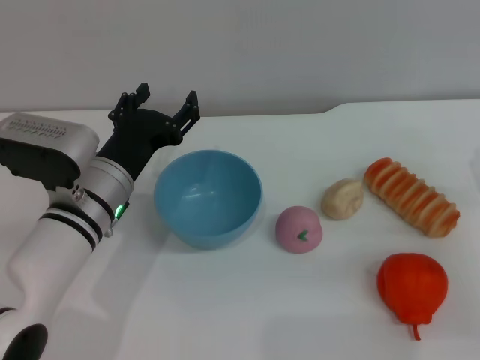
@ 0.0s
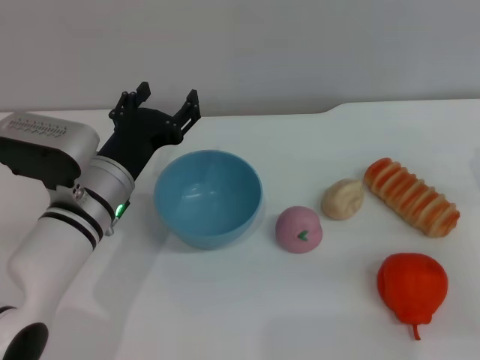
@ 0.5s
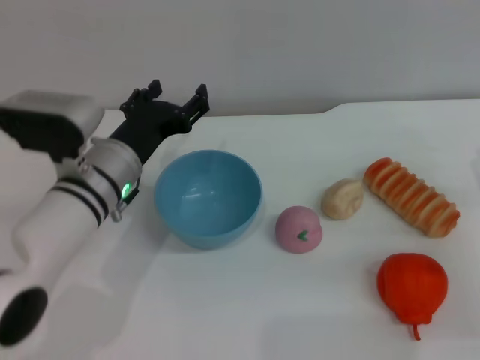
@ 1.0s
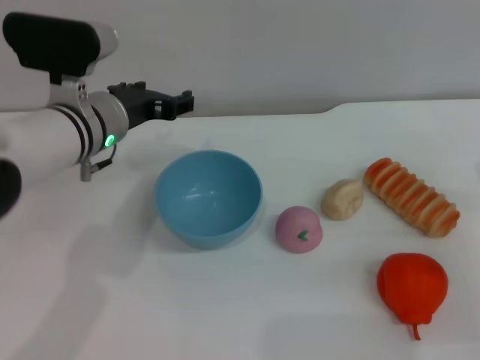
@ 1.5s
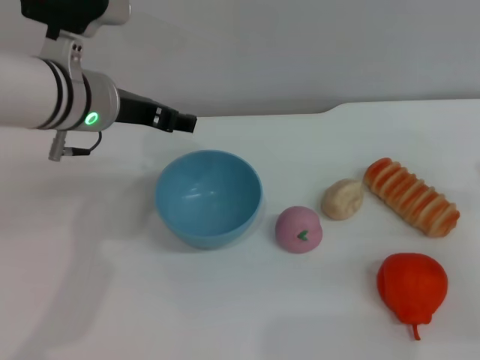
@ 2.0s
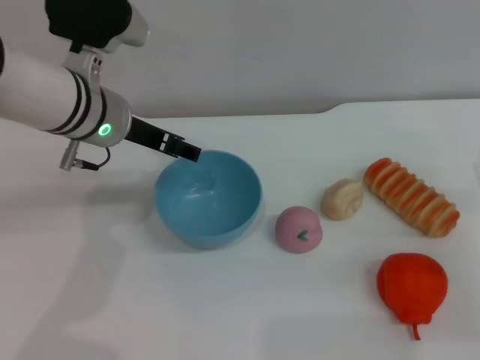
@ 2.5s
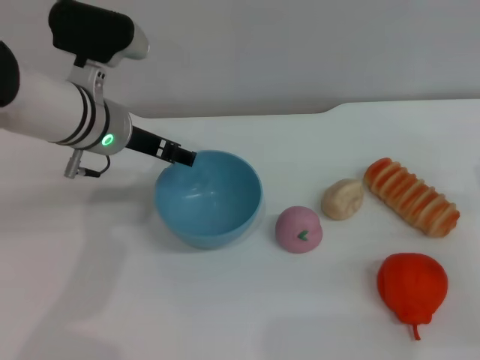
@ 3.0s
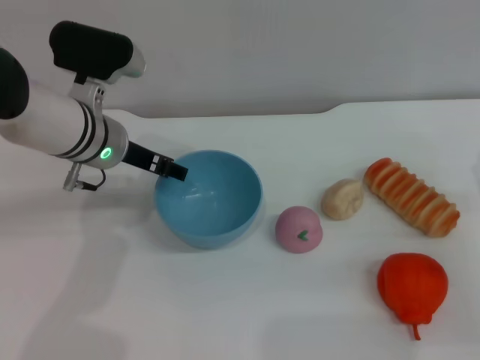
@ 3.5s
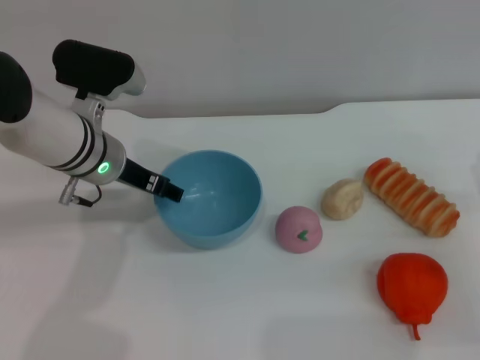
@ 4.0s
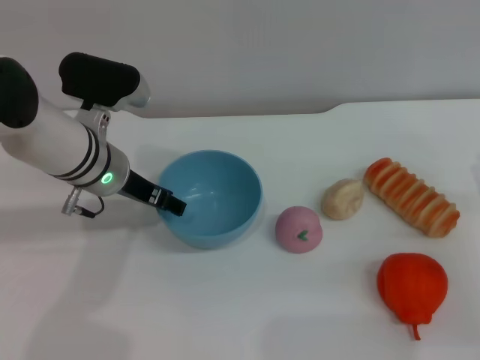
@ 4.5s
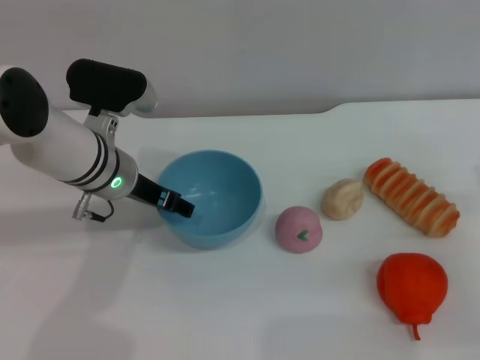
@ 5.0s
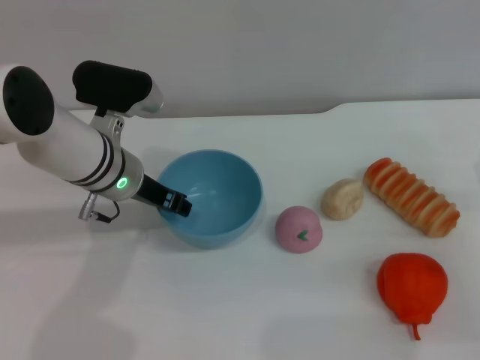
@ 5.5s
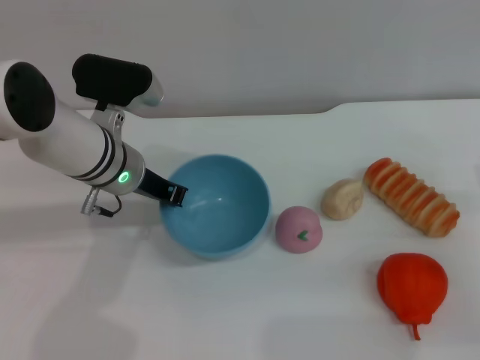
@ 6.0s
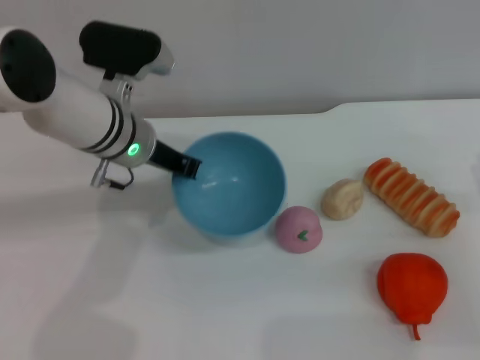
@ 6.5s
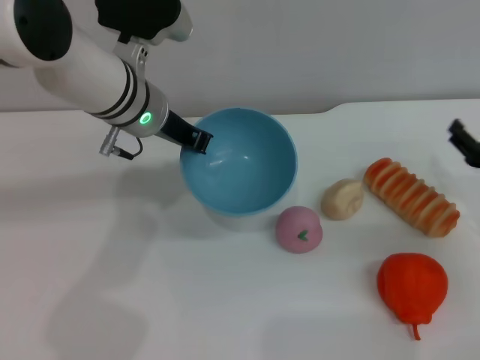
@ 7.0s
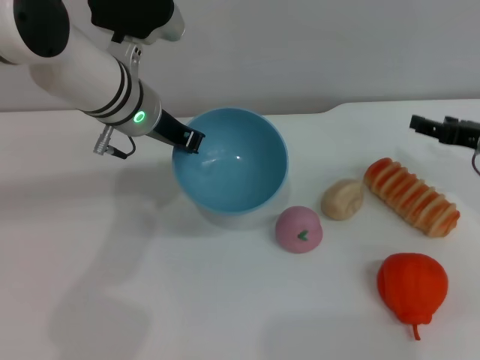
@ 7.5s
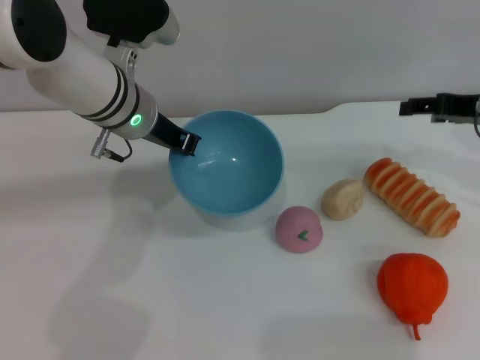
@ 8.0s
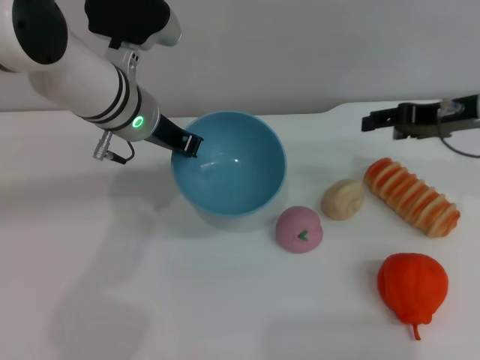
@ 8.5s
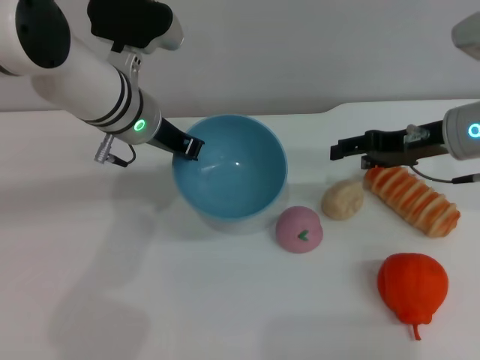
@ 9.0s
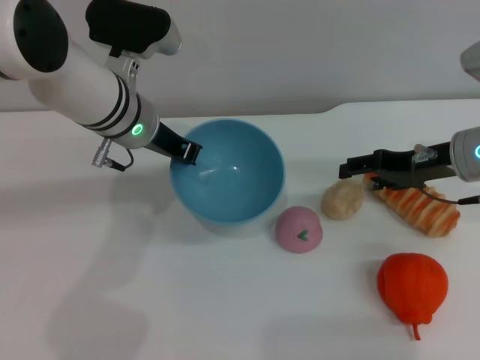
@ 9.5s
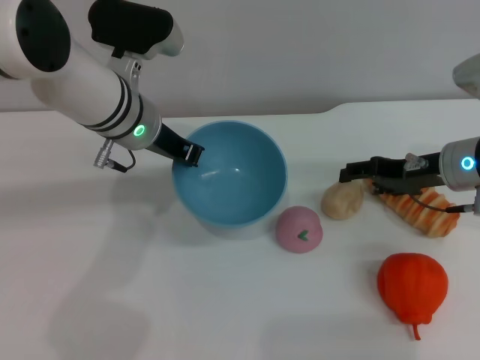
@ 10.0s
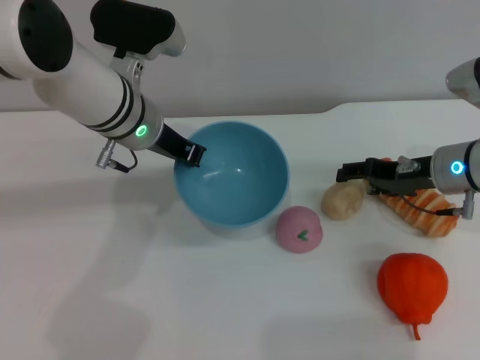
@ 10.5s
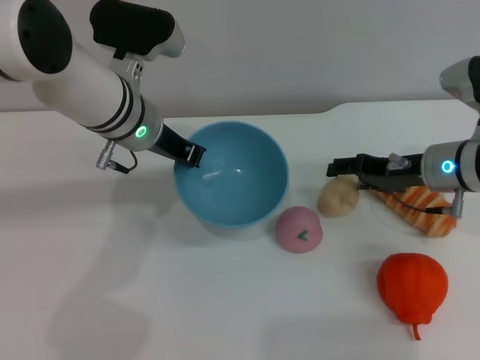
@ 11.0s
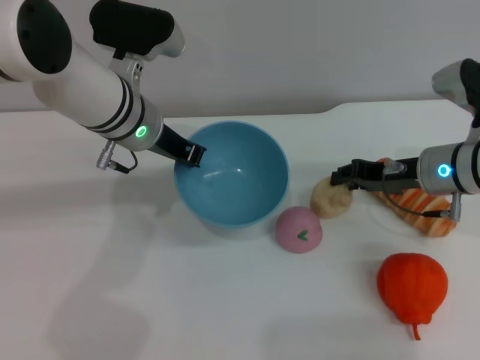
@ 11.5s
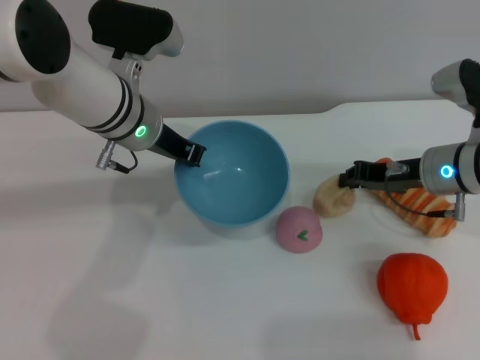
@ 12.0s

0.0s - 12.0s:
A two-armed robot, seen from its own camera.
Task of the whole recording: put the egg yolk pastry into the blue bowl and pour it out repeatedly.
Step, 0.0s - 6.5s: Pick up the bowl with the left gripper.
0.0s - 2.0s: The left gripper goes roughly 15 cm upward and forward.
2.0s - 4.0s: The left gripper travels downward by some 5 cm.
4.0s - 6.0s: The left gripper closes its fingers.
6.0s - 8.0s: The left gripper travels upward by roughly 5 cm, while the right gripper is displaced forward and upward by roughly 15 cm.
8.0s - 10.0s: The right gripper shifts some 10 cm downward and to the left.
10.0s - 12.0s: The right gripper closes up.

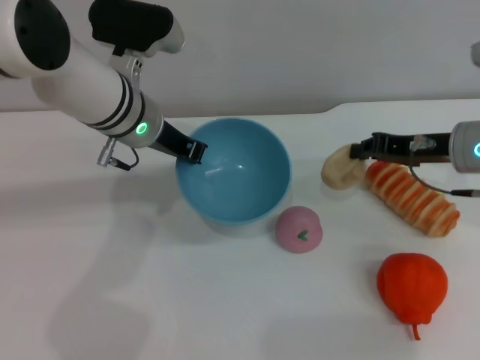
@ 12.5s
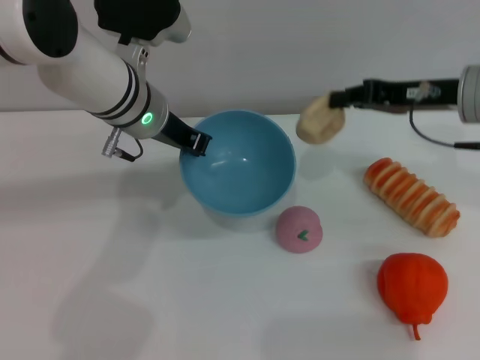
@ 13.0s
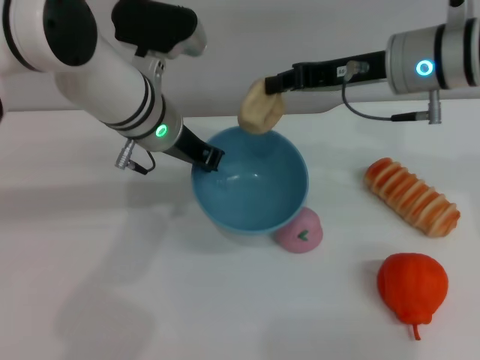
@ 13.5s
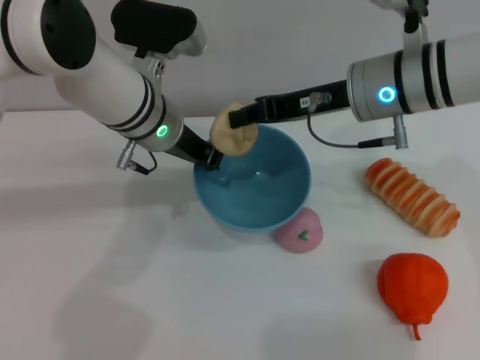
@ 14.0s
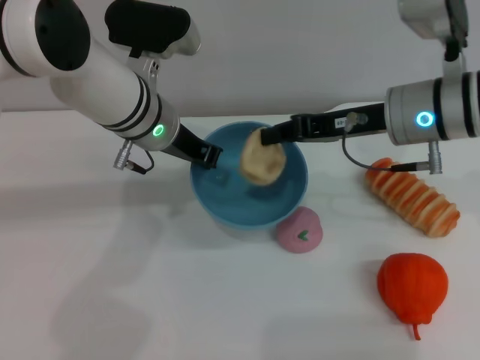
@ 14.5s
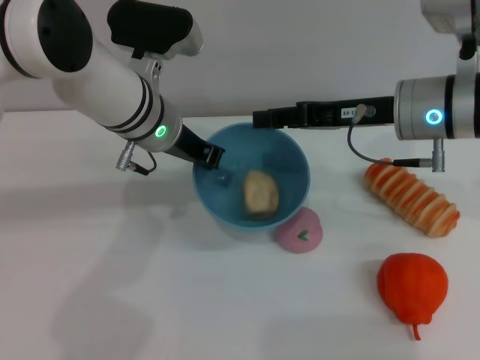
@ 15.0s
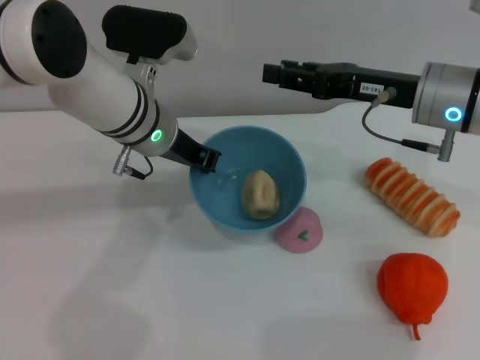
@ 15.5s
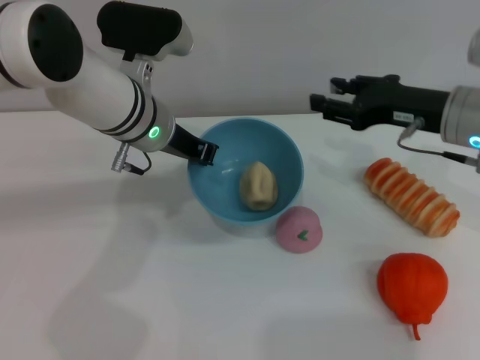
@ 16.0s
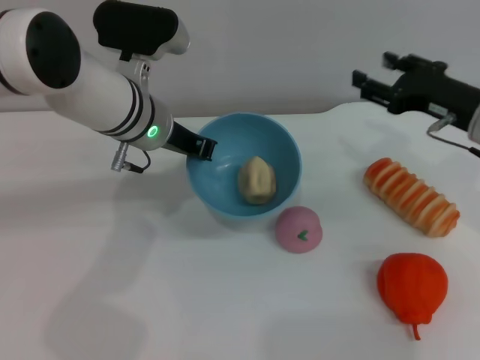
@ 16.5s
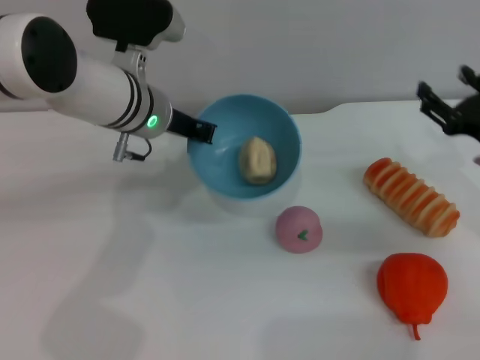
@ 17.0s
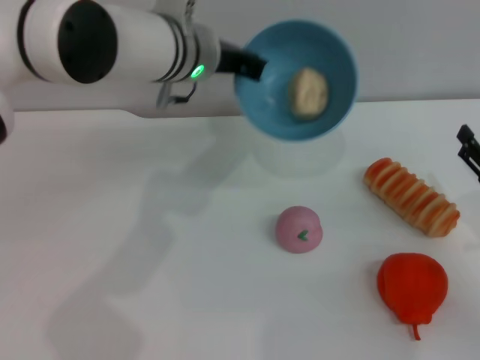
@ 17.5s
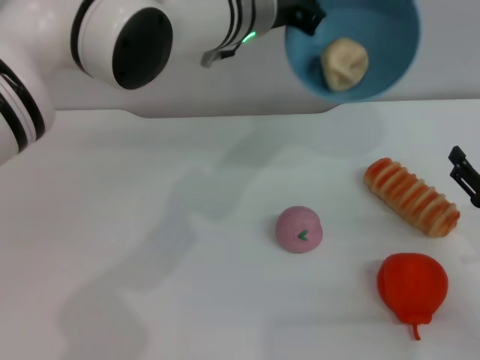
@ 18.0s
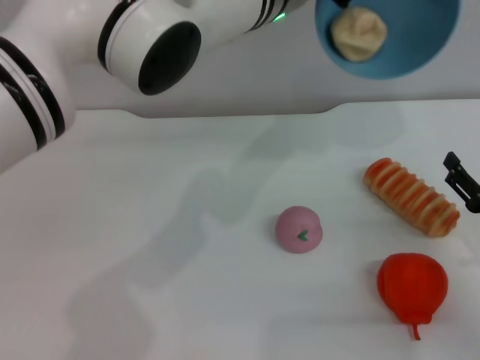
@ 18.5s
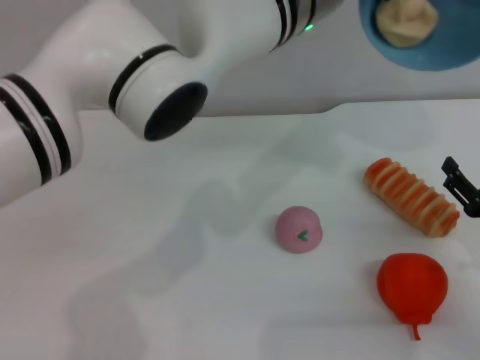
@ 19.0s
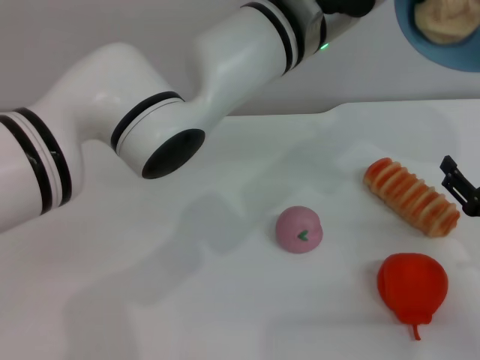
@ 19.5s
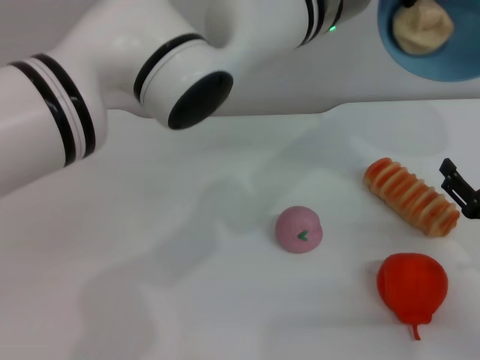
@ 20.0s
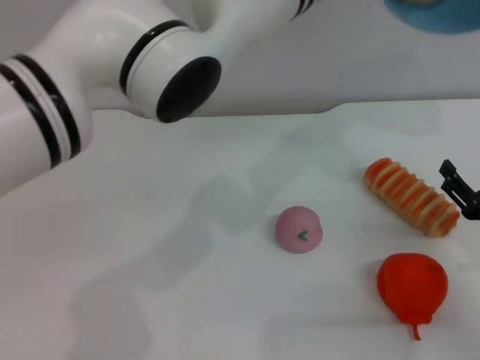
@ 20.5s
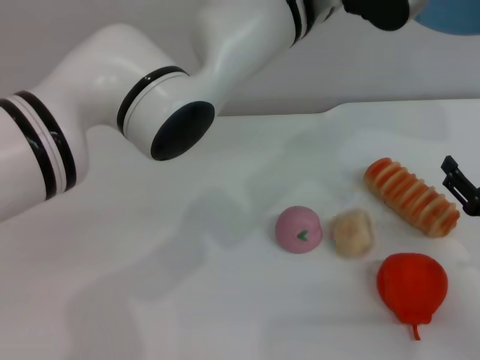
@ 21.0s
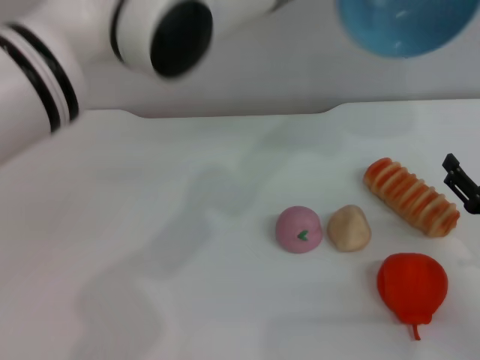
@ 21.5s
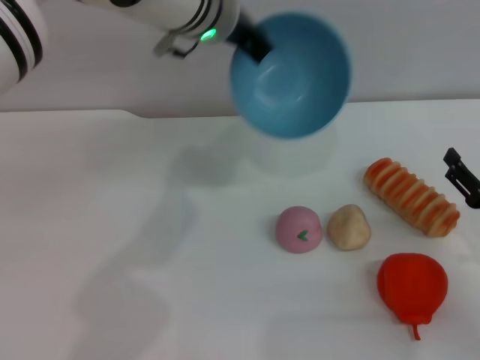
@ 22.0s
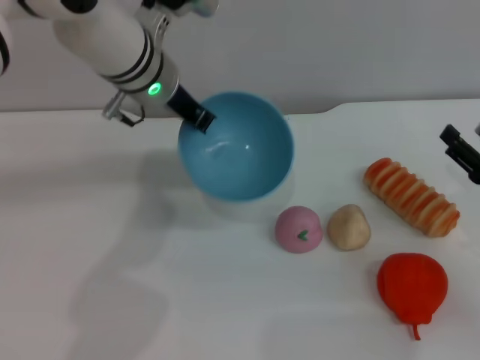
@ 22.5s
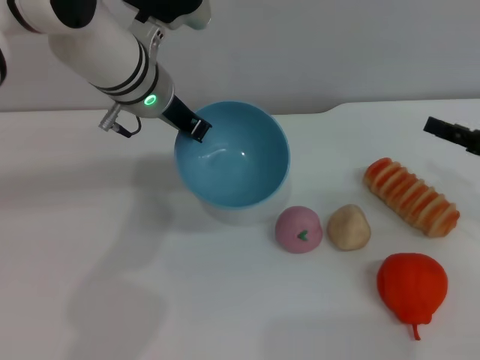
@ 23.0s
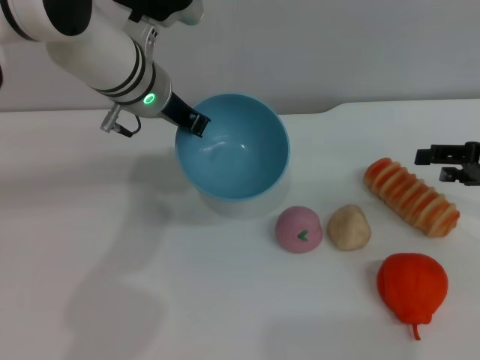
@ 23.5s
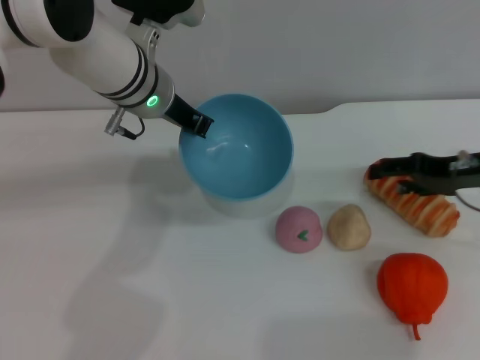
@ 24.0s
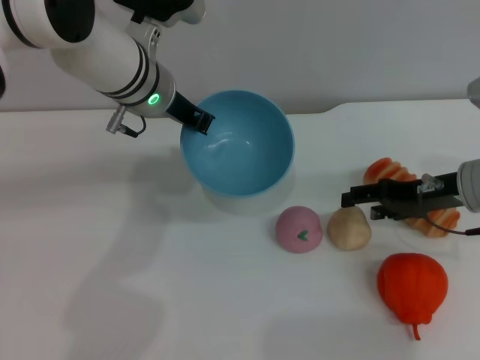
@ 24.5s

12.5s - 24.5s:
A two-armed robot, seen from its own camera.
Task of the whole recording: put the egg yolk pastry into the blue bowl and pour it out repeatedly.
Step, 13.0s - 15.5s: Place the egg yolk pastry into the bowl.
Step, 16.0s - 21.0s: Pour the egg yolk pastry out of bowl.
12.5s - 14.5s: The right gripper shifts about 10 cm to the left and upward.
14.5s - 16.5s: The right gripper is displaced to the right by approximately 10 cm, and opens.
16.5s - 18.5s: The right gripper goes roughly 15 cm backward and downward, while the left gripper heads to the right and upward, covering approximately 15 cm.
20.5s - 22.5s: The left gripper is displaced to the left and downward by approximately 15 cm.
22.5s - 24.5s: The right gripper heads forward and to the left, covering about 10 cm.

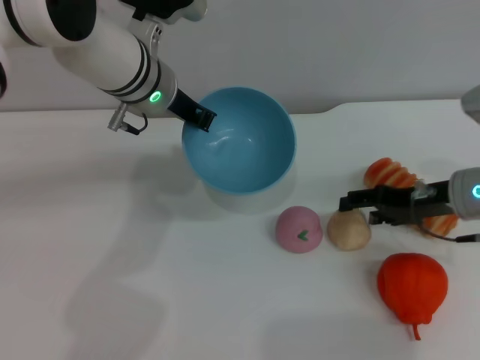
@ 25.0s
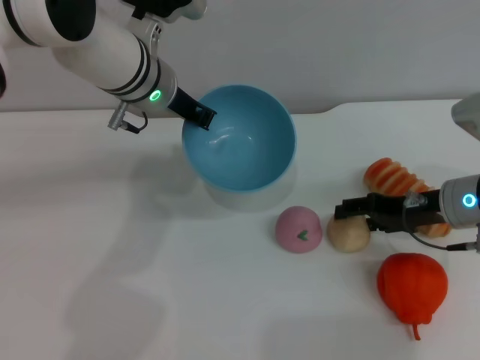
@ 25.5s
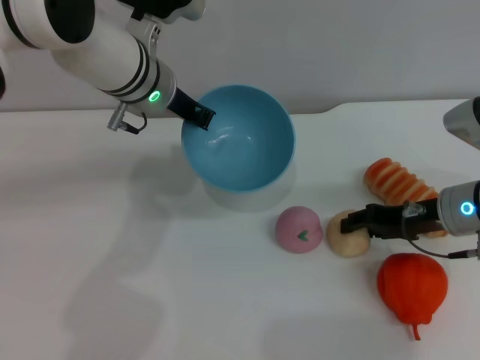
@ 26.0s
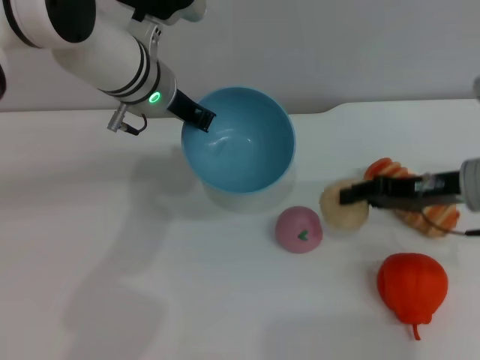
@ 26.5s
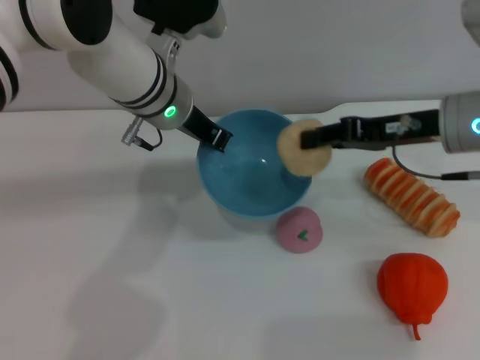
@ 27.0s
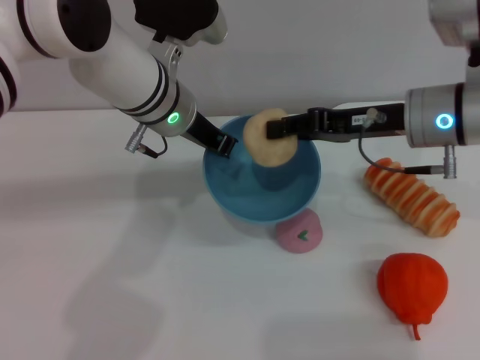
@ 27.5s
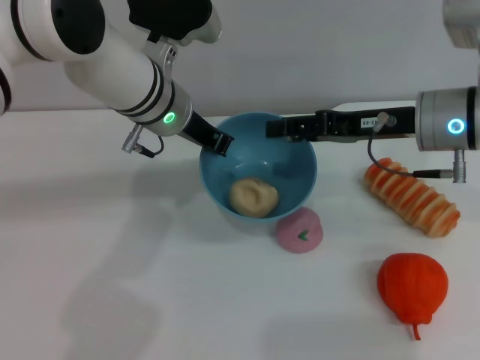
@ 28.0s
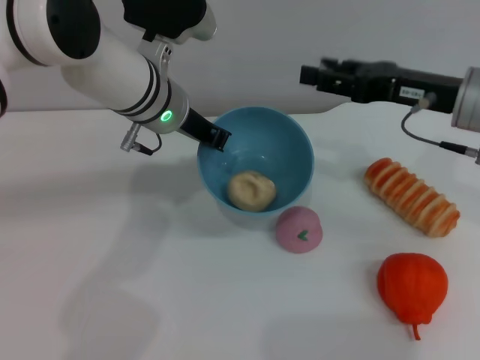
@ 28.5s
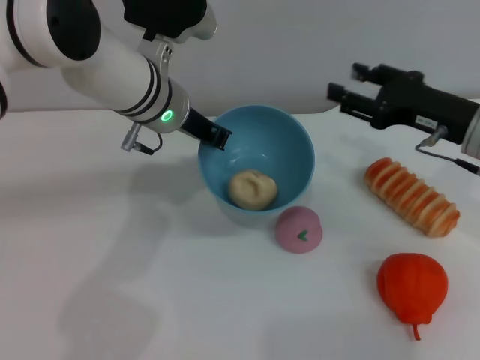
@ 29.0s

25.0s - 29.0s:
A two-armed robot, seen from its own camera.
Task of the whole recording: put the egg yolk pastry into the blue bowl and pour it out repeatedly.
Step, 27.0s - 28.0s: Place the egg yolk pastry into the bowl.
25.0s - 27.0s: The right gripper goes roughly 10 cm upward, and closes up.
27.0s - 29.0s: The right gripper ends up some 5 cm from where it was, and opens up.
